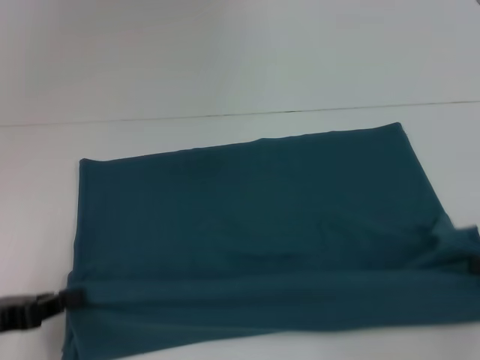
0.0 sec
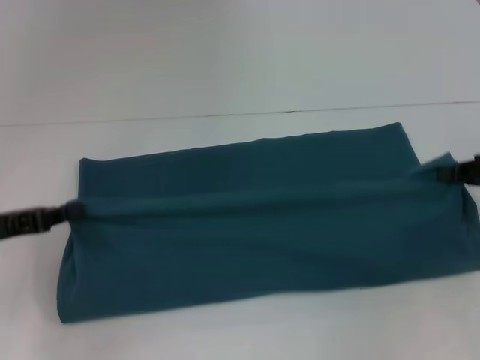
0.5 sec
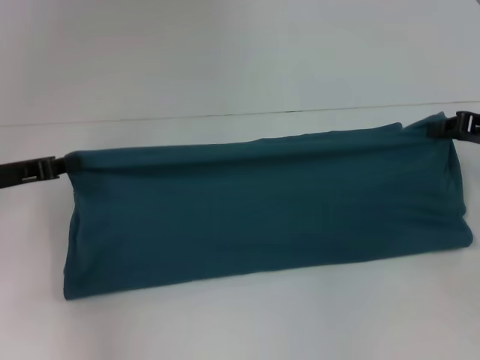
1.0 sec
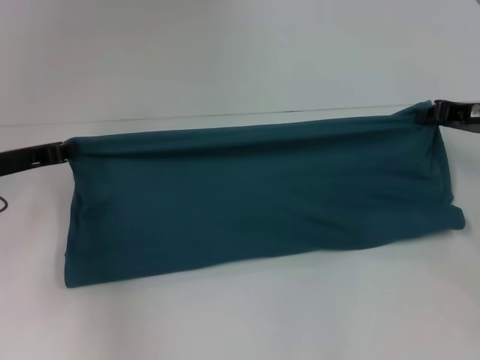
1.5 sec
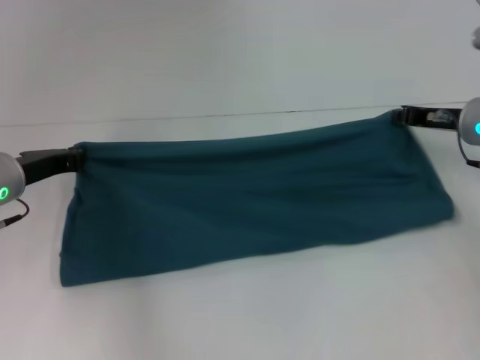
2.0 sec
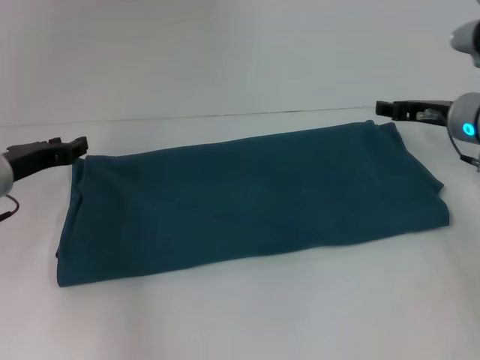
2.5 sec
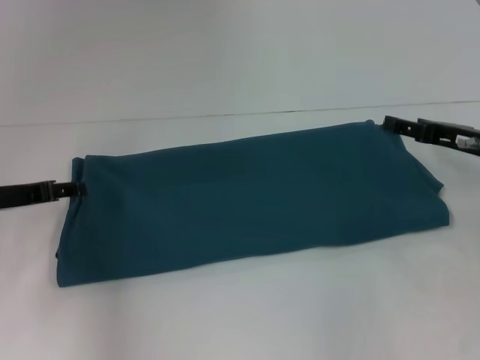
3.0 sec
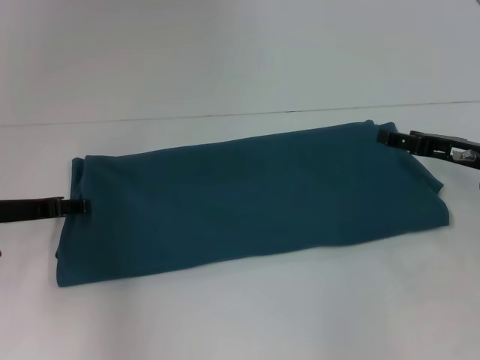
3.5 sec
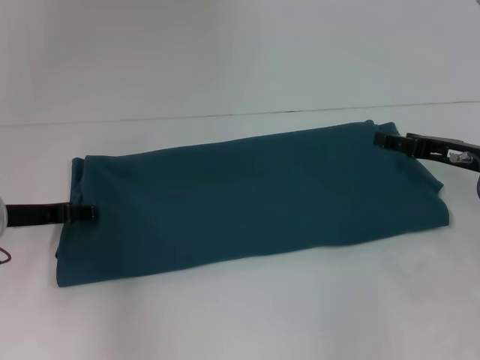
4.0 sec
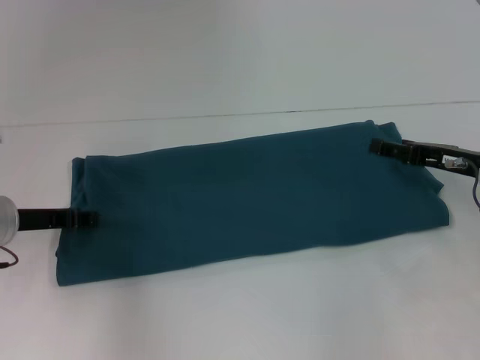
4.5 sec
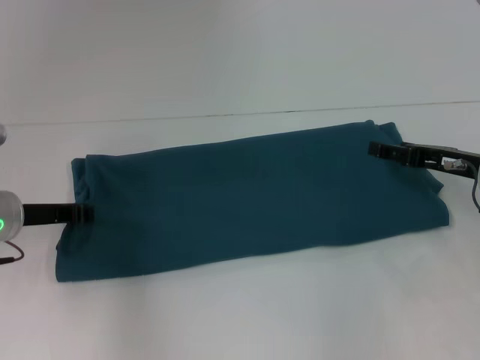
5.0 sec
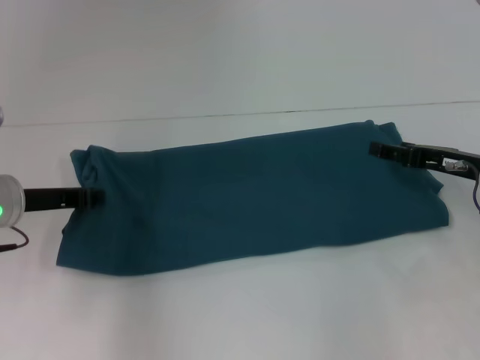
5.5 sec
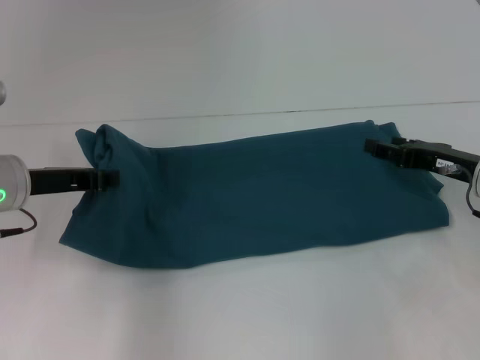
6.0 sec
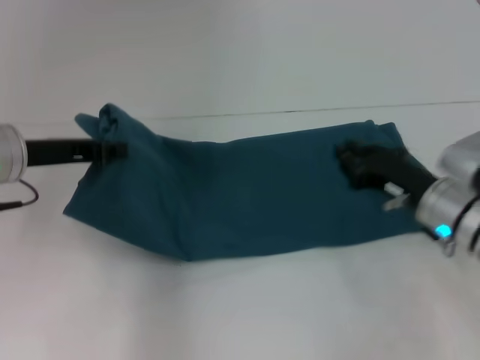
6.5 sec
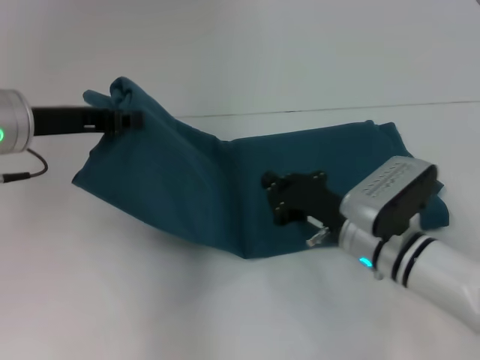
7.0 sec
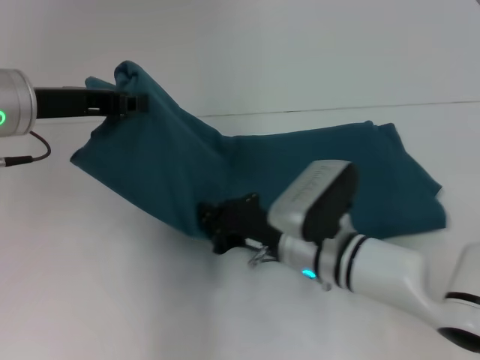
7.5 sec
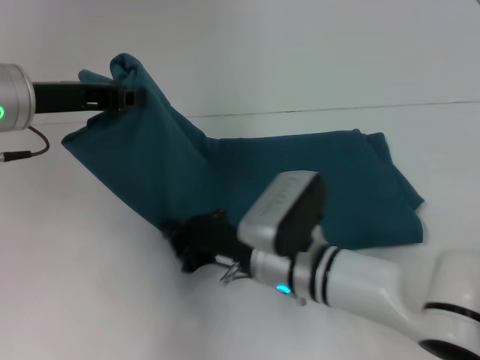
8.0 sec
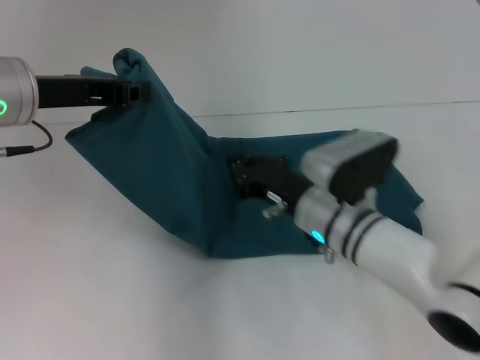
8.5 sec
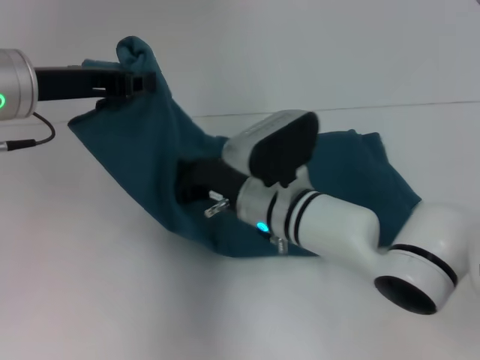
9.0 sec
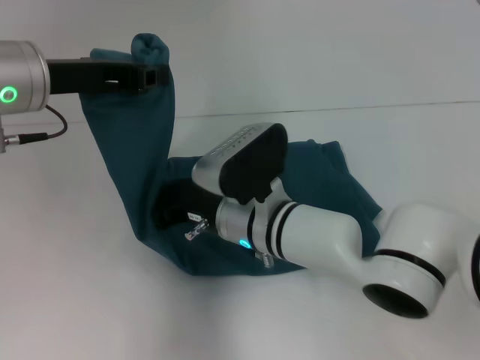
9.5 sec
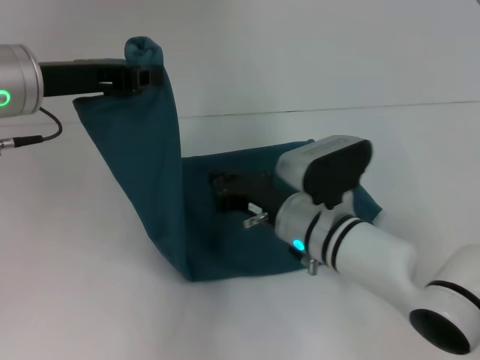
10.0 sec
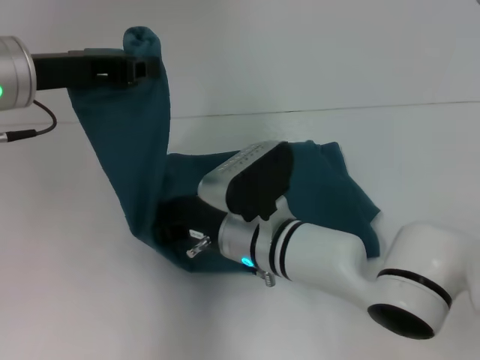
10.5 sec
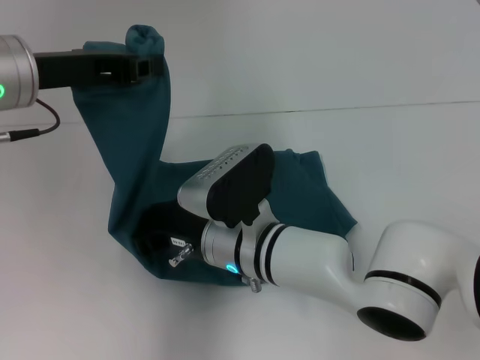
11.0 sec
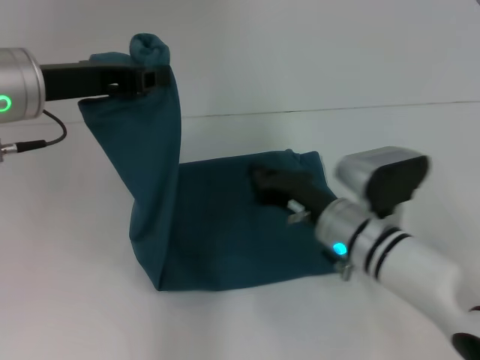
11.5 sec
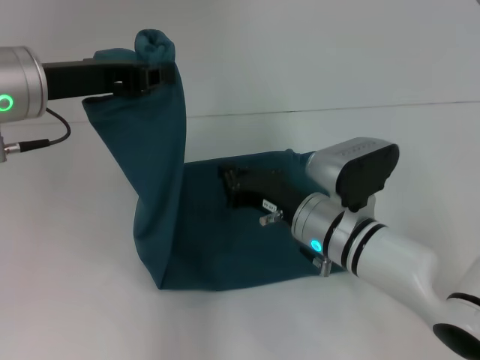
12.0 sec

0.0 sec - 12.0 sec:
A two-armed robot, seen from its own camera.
Step, 0.0 sec - 2.5 sec: Fold the clothes to the left.
Step, 0.0 sec - 2.5 sec: Fold the clothes to the right.
Step, 3.0 sec - 11.0 sec: Press the middle of the clothes with your right hand.
0.0 sec - 2.0 sec: The right gripper goes approximately 20 cm forward and to the left. Meanwhile the left gripper moves forward, some 15 cm.
2.0 sec - 4.0 sec: The right gripper travels backward by roughly 5 cm, and opens its fingers; the left gripper opens its fingers.
4.0 sec - 6.0 sec: The left gripper moves approximately 5 cm, and closes its fingers.
6.0 sec - 8.0 sec: The left gripper shifts approximately 10 cm upward; the right gripper is displaced to the left by approximately 25 cm, and closes up.
8.0 sec - 10.0 sec: The right gripper swings left and right, approximately 10 cm each way, with 2 reversals.
10.0 sec - 12.0 sec: The right gripper reaches some 5 cm to the left, then returns.

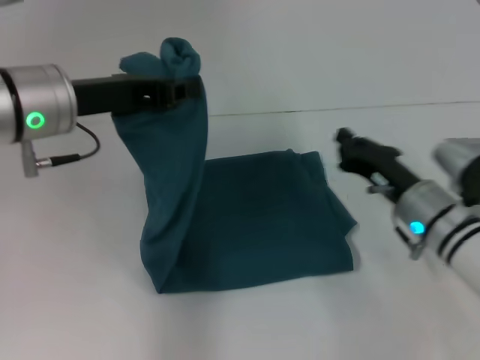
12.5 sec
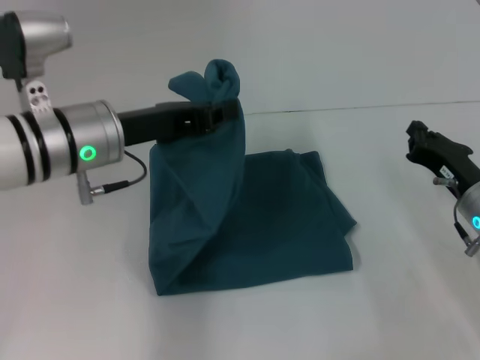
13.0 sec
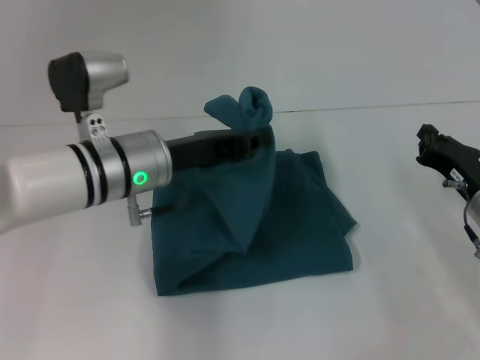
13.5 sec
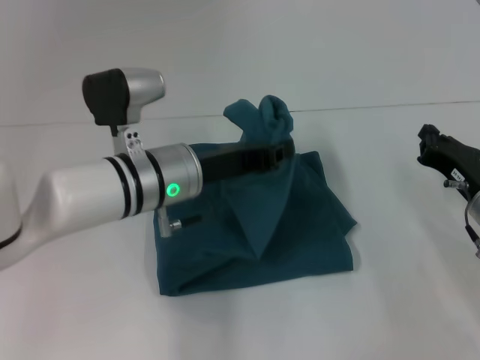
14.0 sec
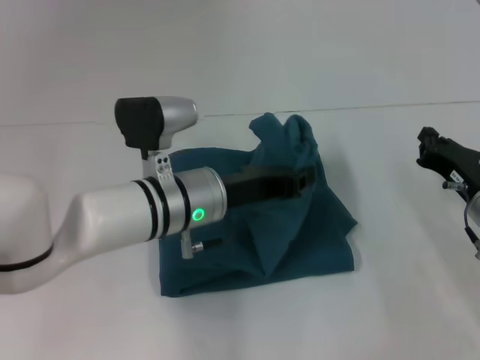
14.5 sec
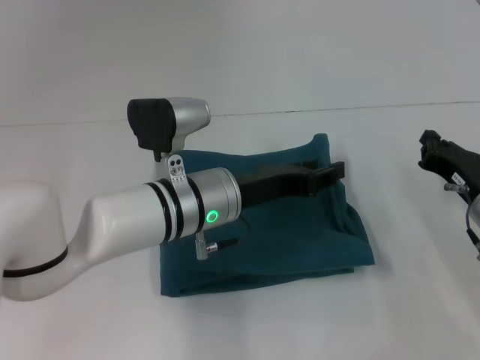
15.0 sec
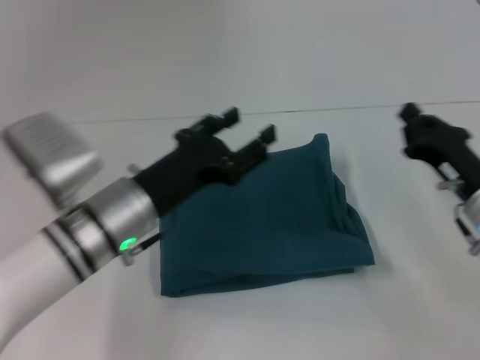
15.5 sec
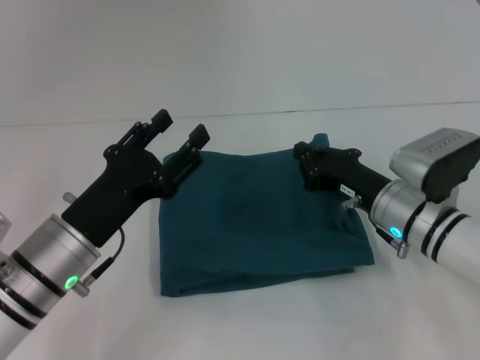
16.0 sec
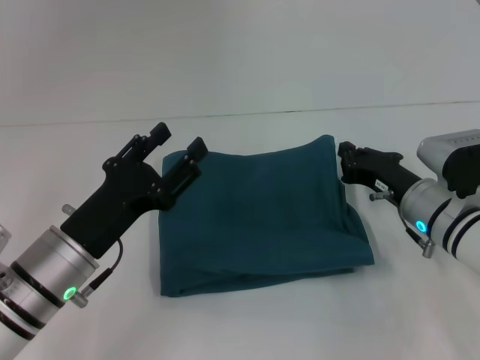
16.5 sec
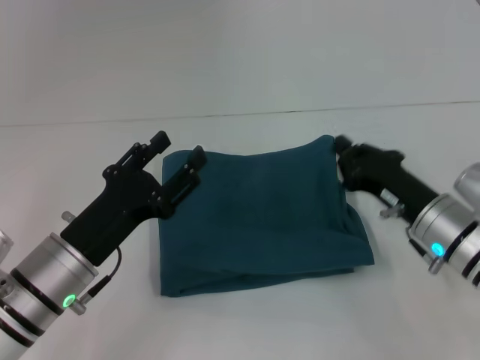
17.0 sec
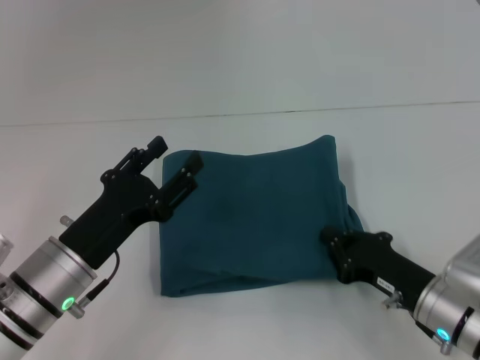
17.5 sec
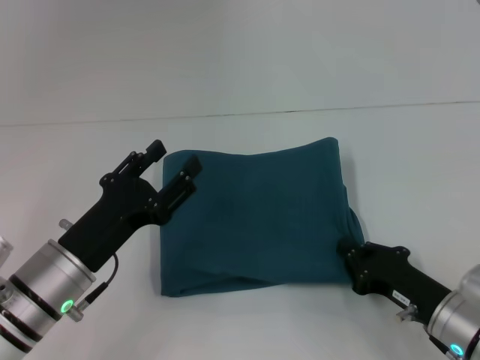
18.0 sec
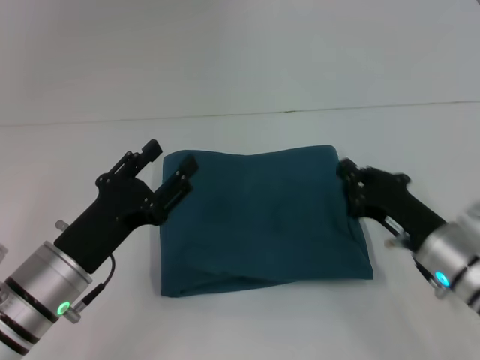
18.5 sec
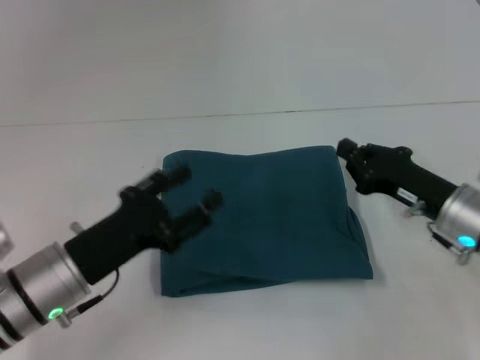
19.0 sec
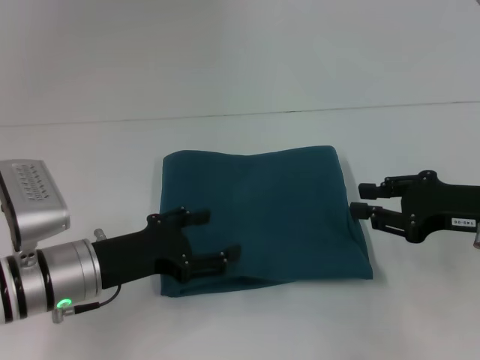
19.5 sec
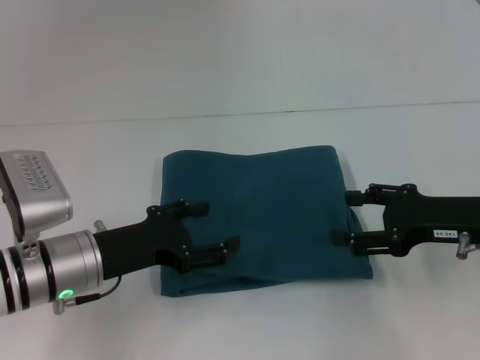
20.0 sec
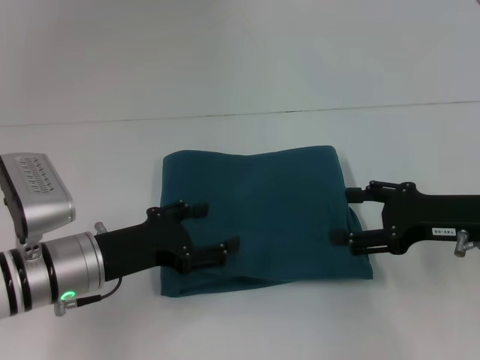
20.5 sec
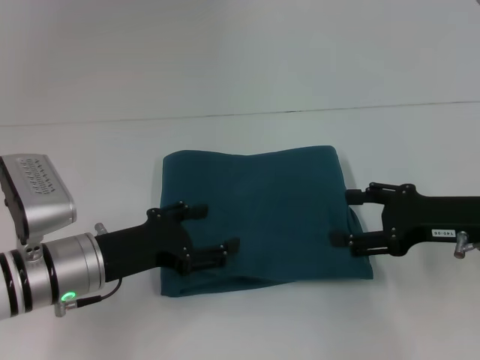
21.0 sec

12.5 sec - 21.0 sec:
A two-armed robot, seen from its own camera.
Step, 12.5 sec - 15.0 sec: Fold the clothes to the left.
12.5 sec - 14.5 sec: The left gripper shifts approximately 15 cm downward and to the right; the right gripper travels to the right by approximately 10 cm.
14.5 sec - 16.5 sec: The right gripper moves to the left, about 5 cm, while the left gripper goes approximately 15 cm to the left and backward, and opens up.
16.5 sec - 19.0 sec: The right gripper travels backward and back again, about 10 cm each way.
19.0 sec - 21.0 sec: The right gripper travels upward by some 5 cm, and opens up.

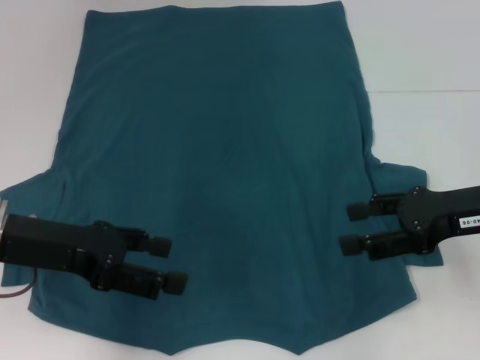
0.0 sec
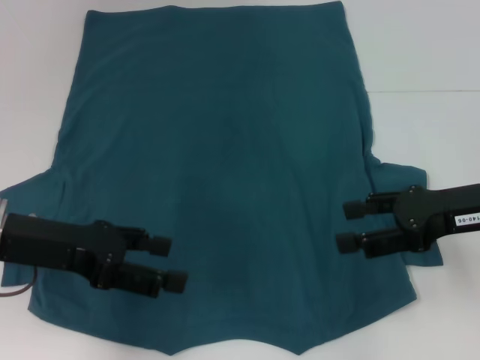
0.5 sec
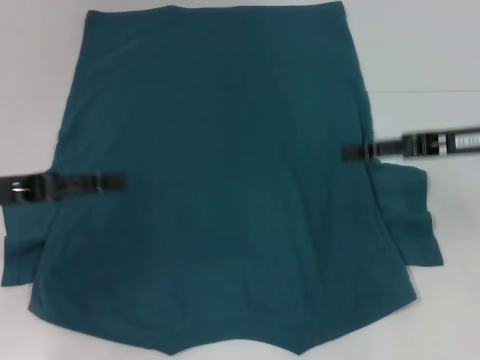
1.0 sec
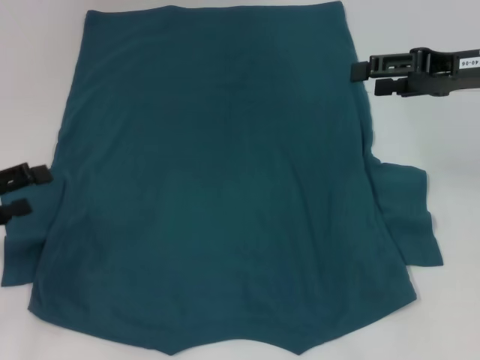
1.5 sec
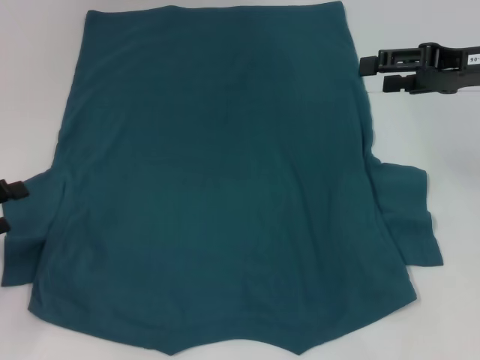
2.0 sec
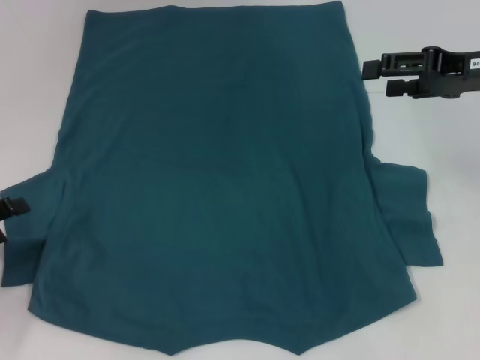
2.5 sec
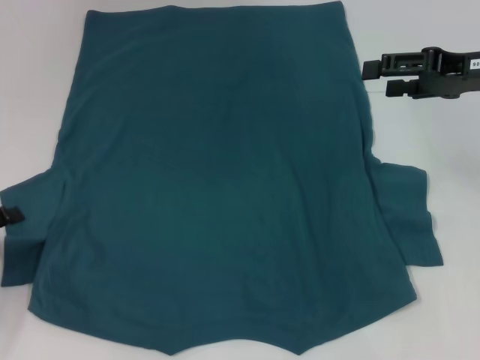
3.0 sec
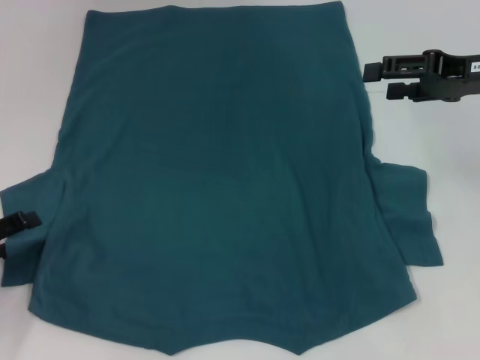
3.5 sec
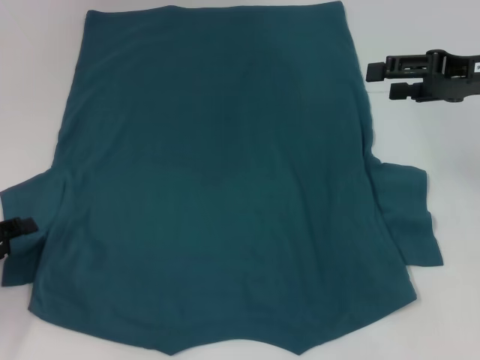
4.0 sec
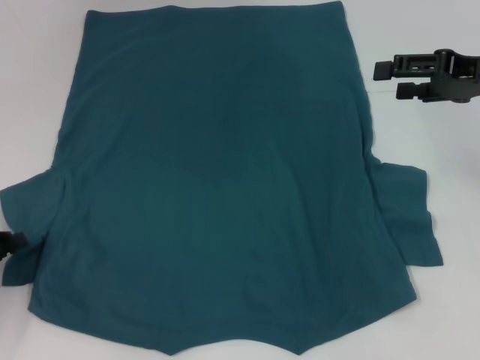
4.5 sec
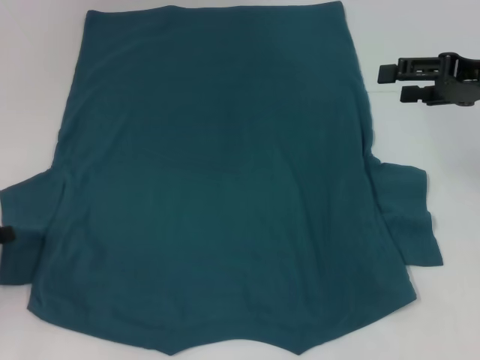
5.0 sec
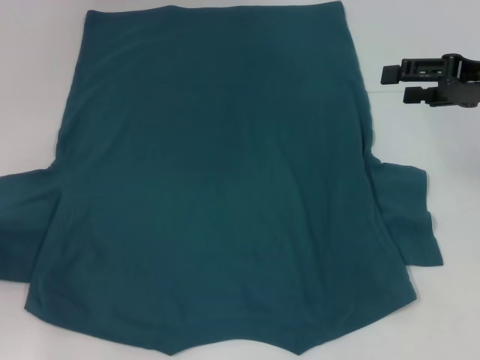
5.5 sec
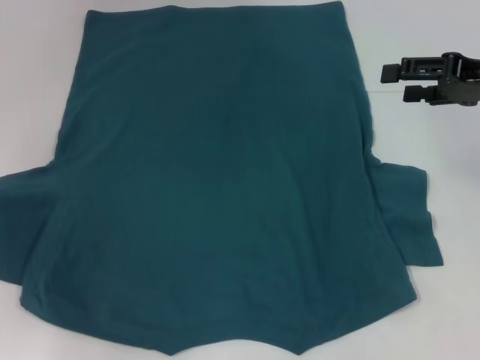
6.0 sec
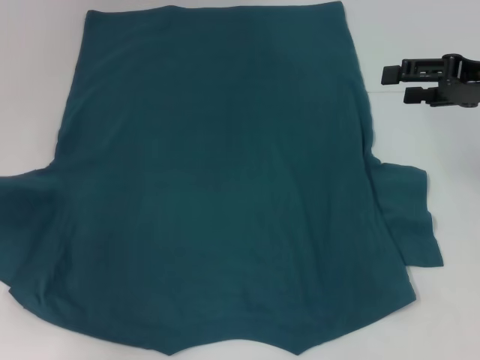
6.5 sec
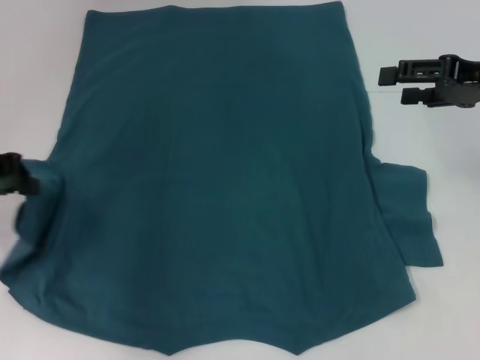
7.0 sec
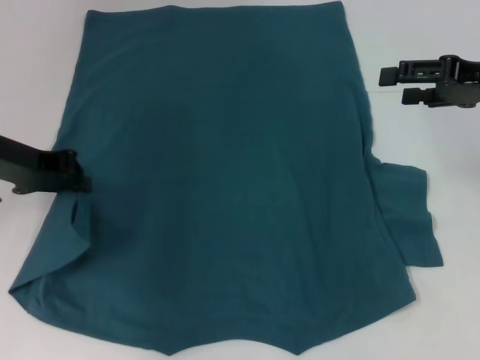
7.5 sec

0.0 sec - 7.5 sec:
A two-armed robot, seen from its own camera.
0.0 sec - 2.0 sec: The right gripper moves forward and upward, about 10 cm. Meanwhile the left gripper moves to the left and downward, about 15 cm.
2.0 sec - 4.0 sec: There are only small adjustments of the grippers.
4.0 sec - 5.5 sec: The left gripper moves about 5 cm, and closes.
5.5 sec - 7.5 sec: The left gripper shifts approximately 15 cm to the right, forward and upward.
